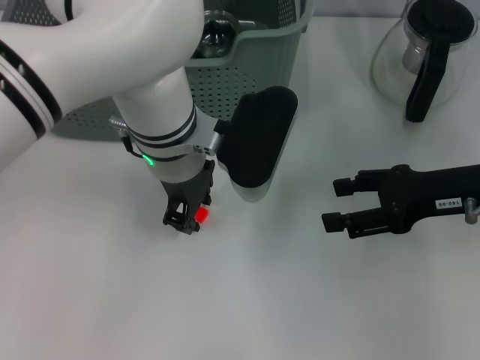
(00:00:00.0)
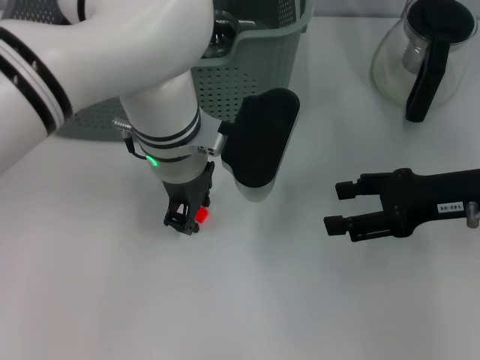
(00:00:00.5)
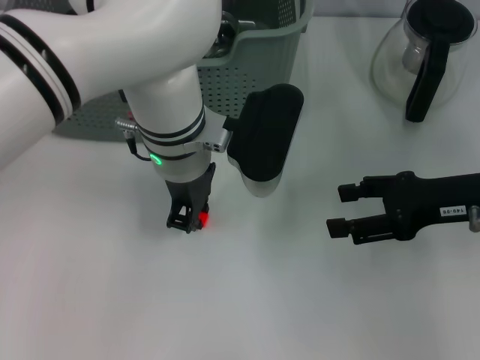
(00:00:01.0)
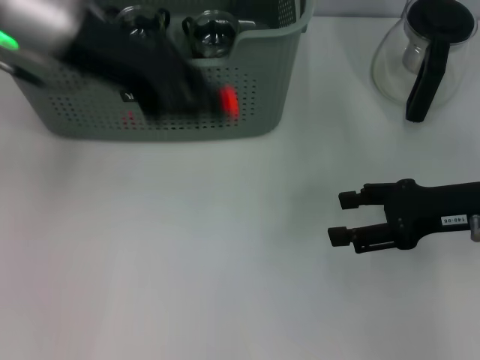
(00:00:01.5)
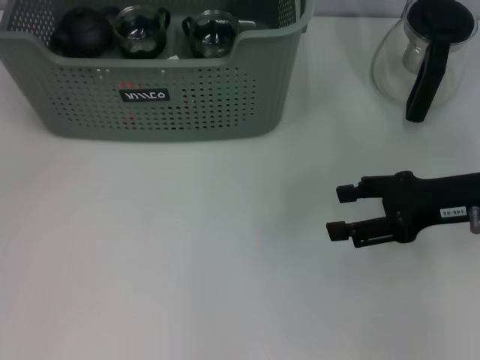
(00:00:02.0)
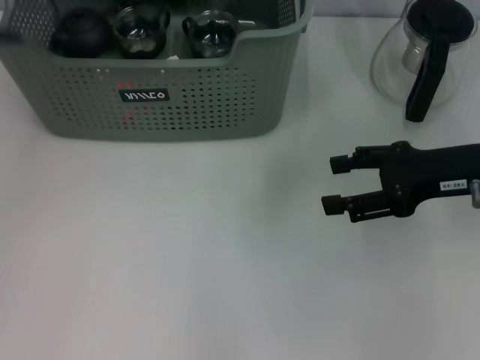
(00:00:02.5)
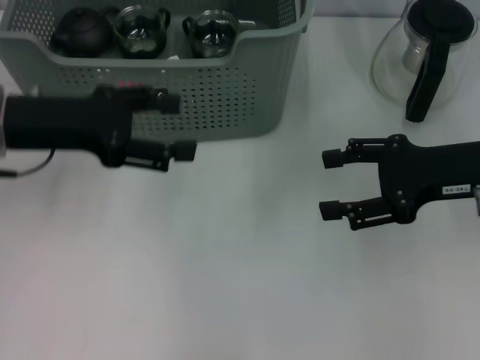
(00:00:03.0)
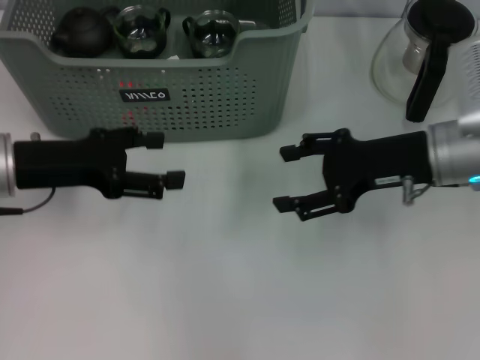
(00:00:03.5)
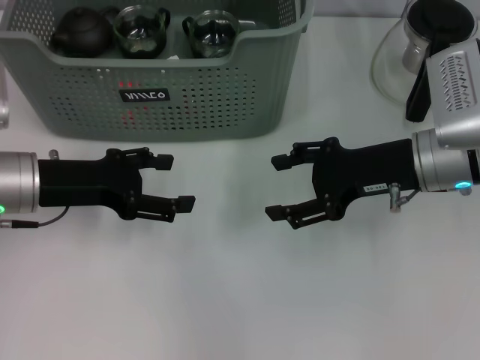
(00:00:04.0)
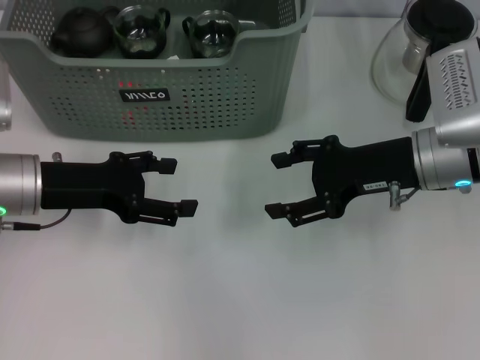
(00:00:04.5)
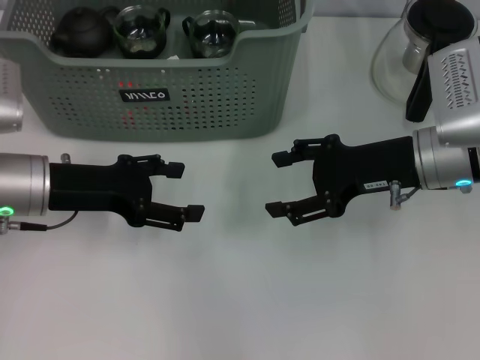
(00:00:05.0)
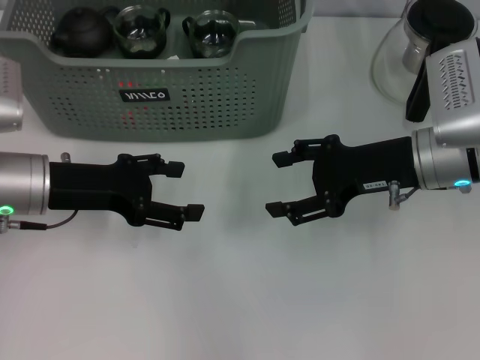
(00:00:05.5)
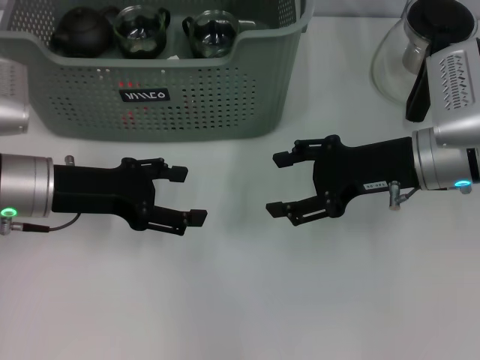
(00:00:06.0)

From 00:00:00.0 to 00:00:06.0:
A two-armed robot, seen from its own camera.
Task of the whole recording: pick up the teacup on the table and place it into the storage bin, pick up the block on the table and place it into the storage bin.
Step, from 00:00:01.0 to 00:00:02.0: Place the orange block in the storage box with left gripper.
From 00:00:00.0 to 00:00:02.0: The left gripper travels to the left and upward by some 25 cm.
From 00:00:02.0 to 00:00:04.0: The left gripper shifts some 20 cm downward and backward, and opens up; the right gripper goes approximately 5 cm to the left.
From 00:00:04.0 to 00:00:06.0: The two grippers keep their place.
